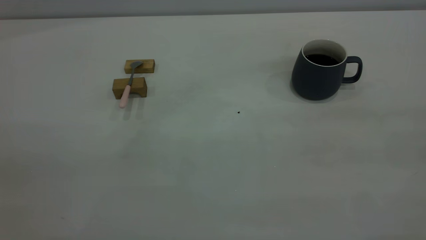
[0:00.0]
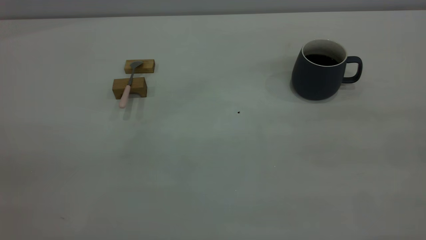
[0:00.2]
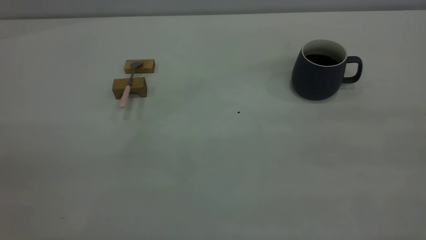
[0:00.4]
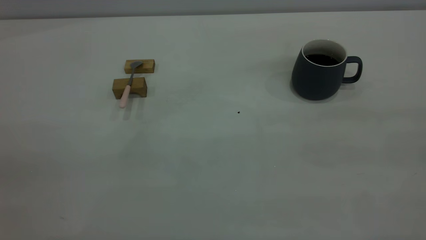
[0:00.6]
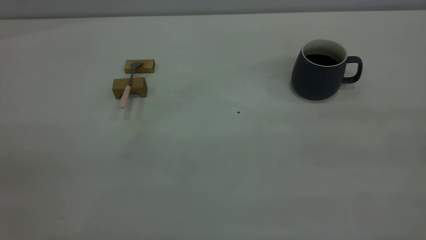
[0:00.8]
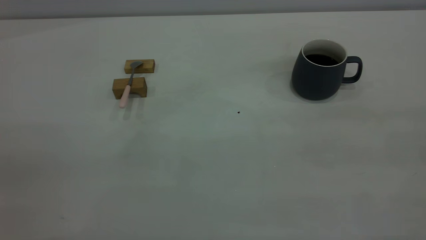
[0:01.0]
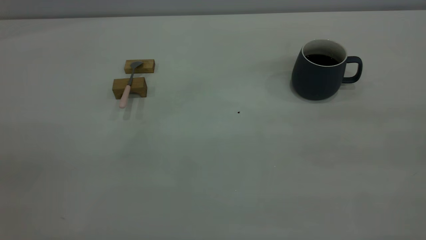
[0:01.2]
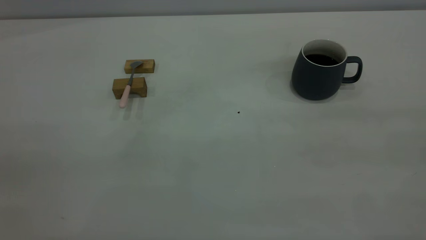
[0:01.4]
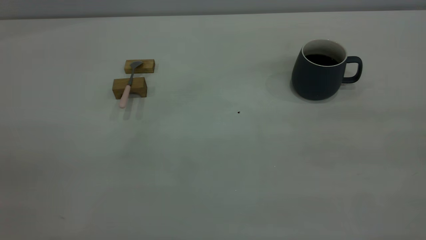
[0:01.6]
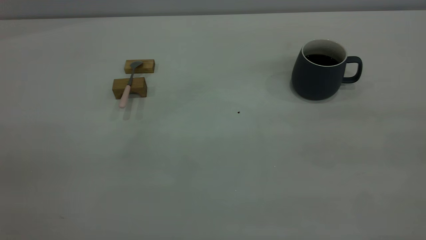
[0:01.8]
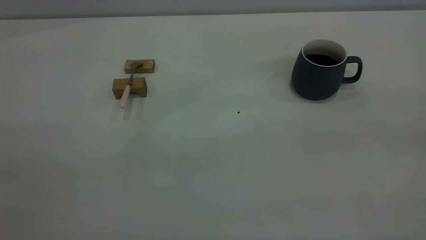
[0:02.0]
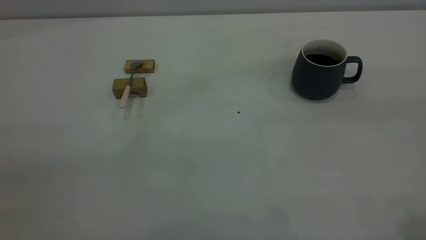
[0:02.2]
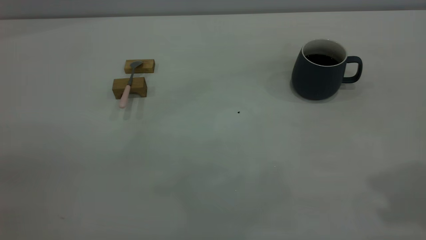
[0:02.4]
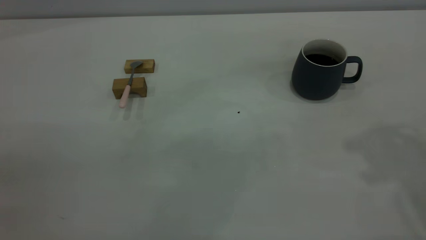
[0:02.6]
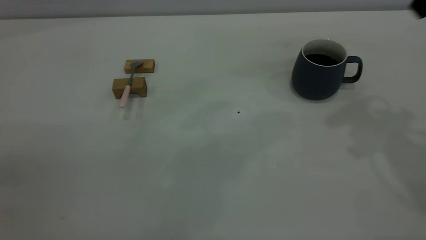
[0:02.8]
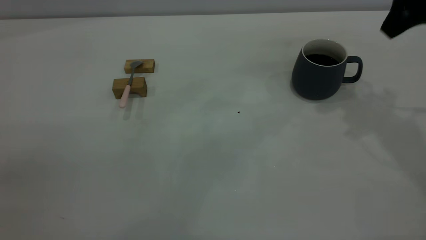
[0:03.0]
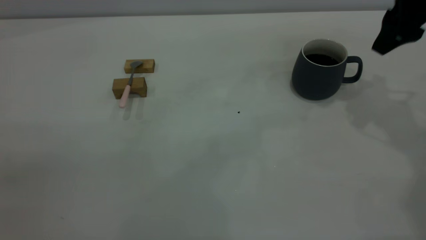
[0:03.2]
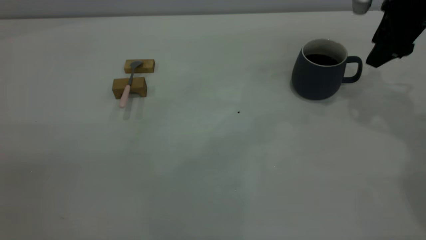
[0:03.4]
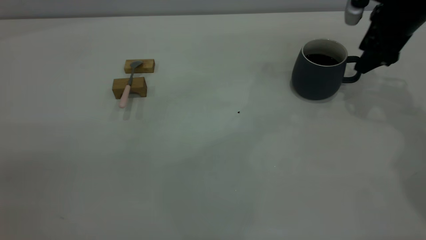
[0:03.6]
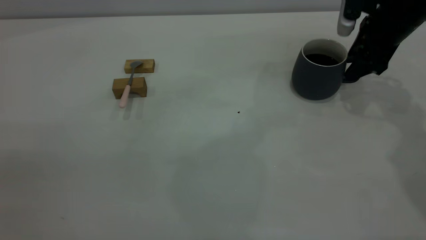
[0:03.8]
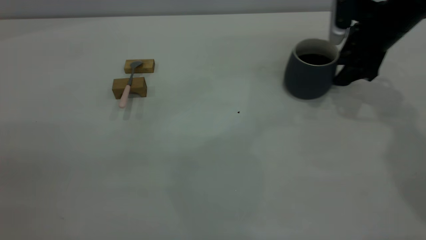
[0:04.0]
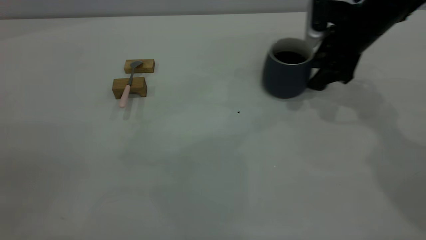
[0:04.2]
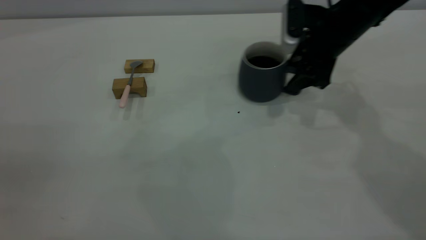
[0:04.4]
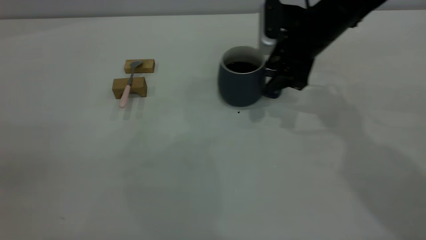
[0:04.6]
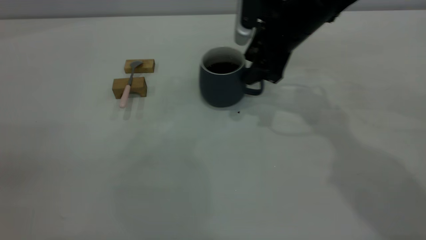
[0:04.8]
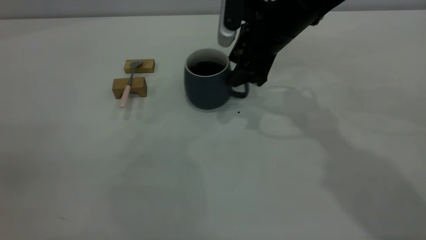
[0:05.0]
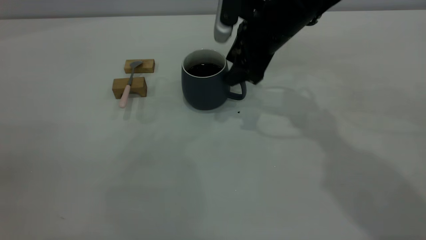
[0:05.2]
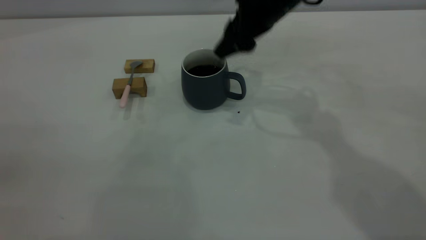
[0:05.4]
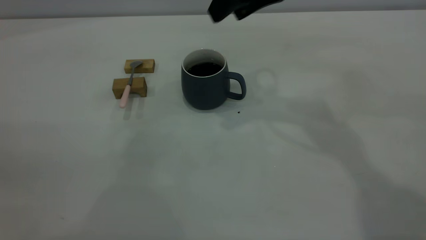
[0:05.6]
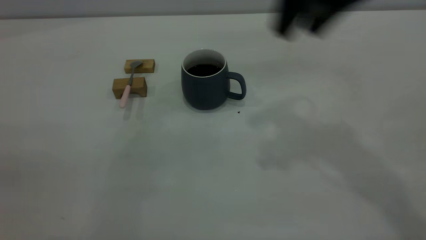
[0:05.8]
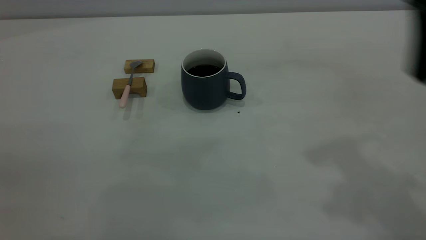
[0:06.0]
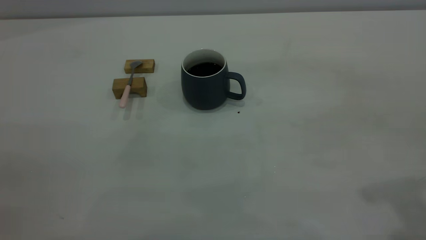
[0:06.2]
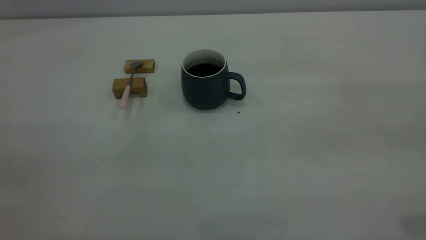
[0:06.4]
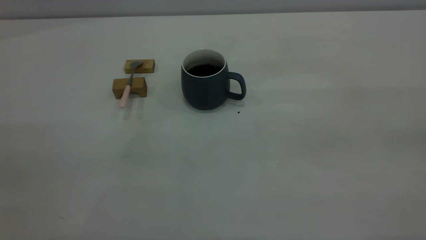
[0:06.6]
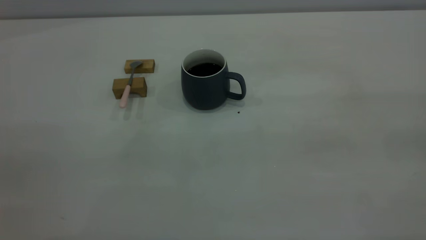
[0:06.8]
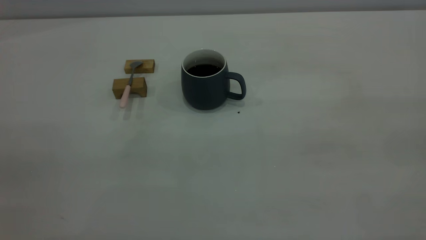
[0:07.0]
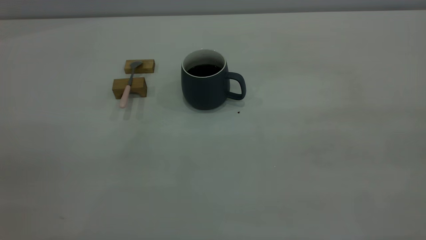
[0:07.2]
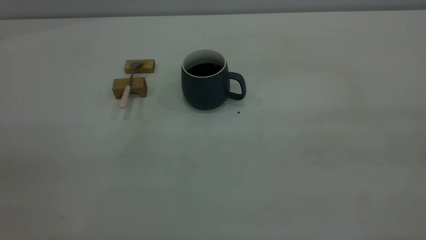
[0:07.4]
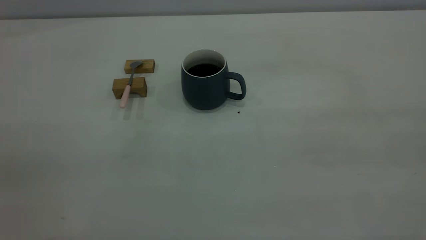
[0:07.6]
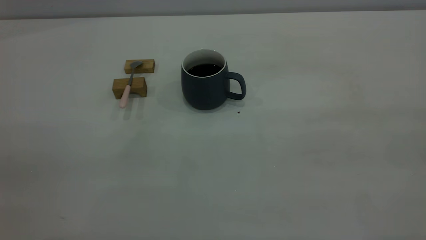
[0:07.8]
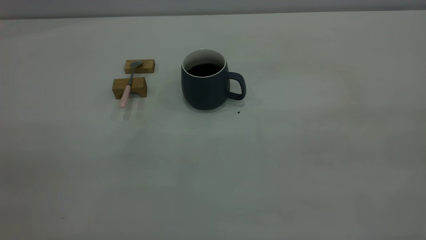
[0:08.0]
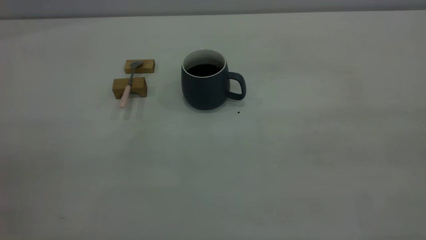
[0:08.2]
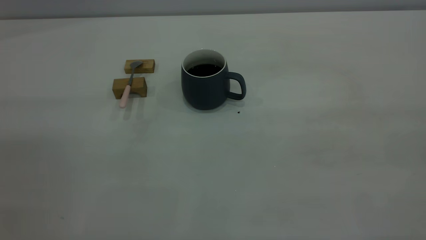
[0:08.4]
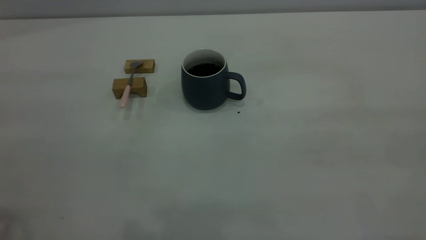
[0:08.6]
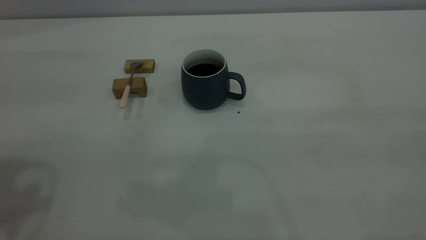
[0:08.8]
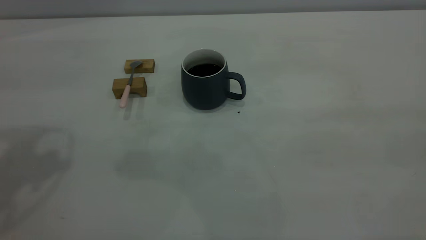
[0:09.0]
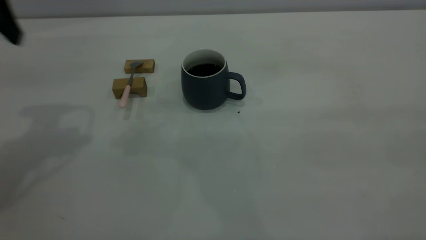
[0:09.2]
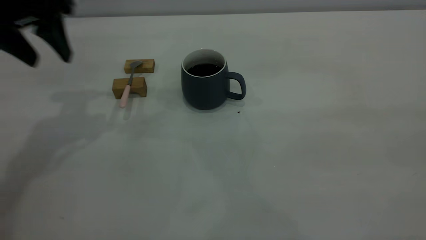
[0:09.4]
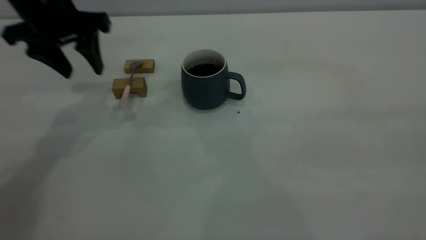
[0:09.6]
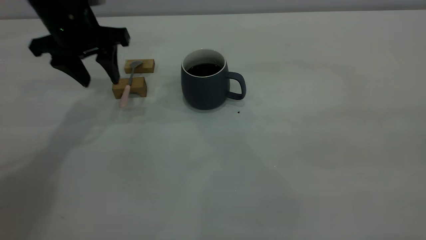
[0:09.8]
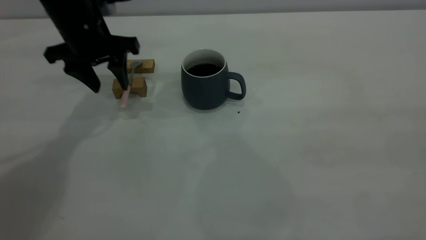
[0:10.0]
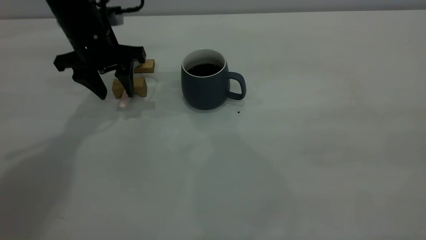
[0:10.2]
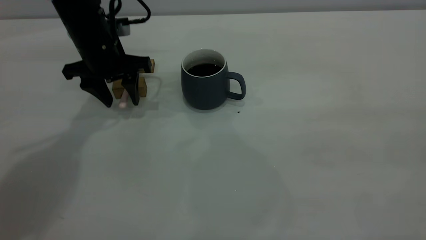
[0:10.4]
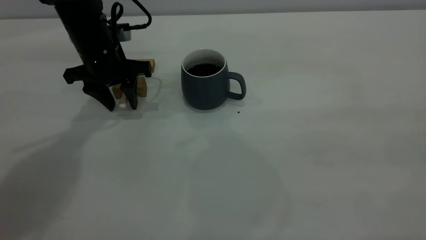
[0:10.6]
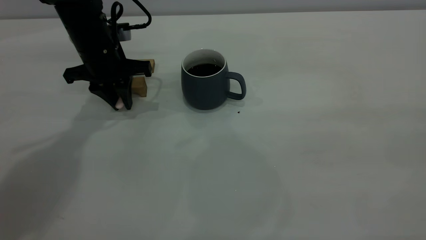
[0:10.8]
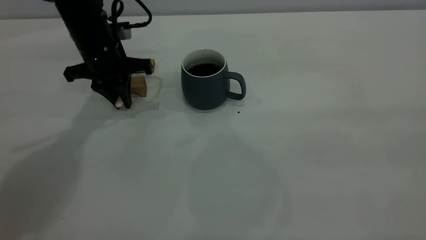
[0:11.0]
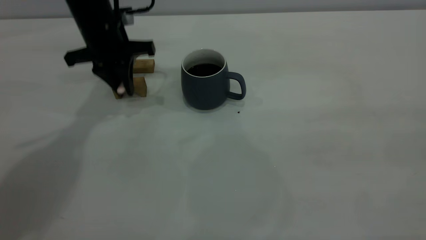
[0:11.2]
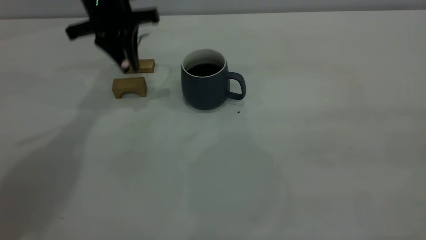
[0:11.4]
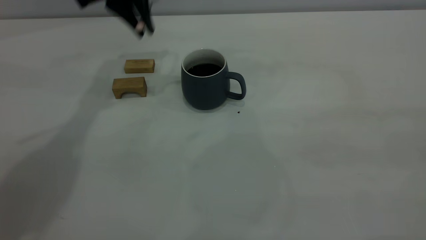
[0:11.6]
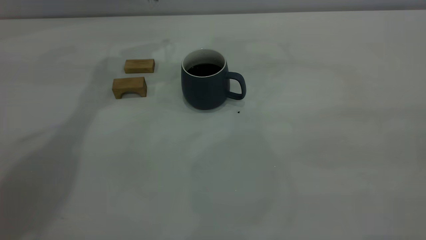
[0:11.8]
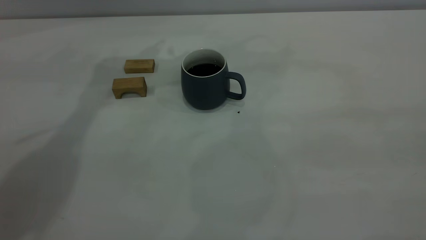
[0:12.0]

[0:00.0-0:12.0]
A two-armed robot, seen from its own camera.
Step, 0:00.0 to 0:05.2: Move the cup with coffee to the center of view.
Step, 0:05.6 to 0:11.2: Pick up the spoon.
0:00.0 to 0:01.6: The two grippers keep their place.
0:01.6 to 0:03.0: The right gripper is displaced forward by some 35 cm.
0:03.0 to 0:04.4: The right gripper moves downward, to the left and forward, approximately 15 cm.
0:04.4 to 0:06.0: The right gripper is displaced backward and upward by roughly 30 cm.
0:06.0 to 0:07.6: The right gripper heads backward and to the right, covering about 20 cm.
0:09.0 to 0:10.4: The left gripper heads downward, forward and to the right, covering roughly 30 cm.
0:10.4 to 0:12.0: The left gripper travels upward by approximately 20 cm, and closes.

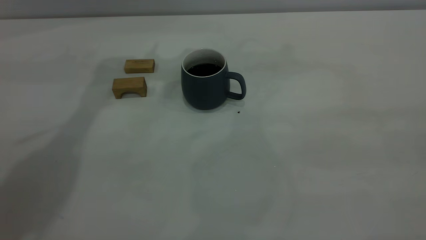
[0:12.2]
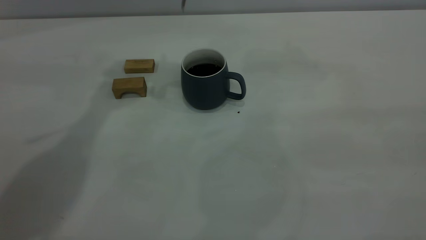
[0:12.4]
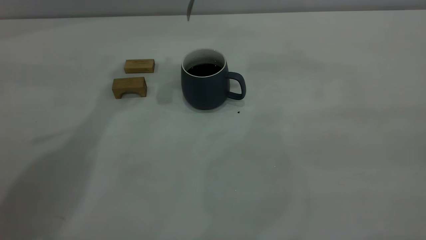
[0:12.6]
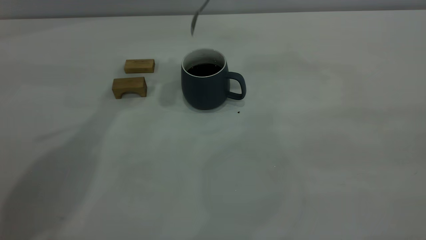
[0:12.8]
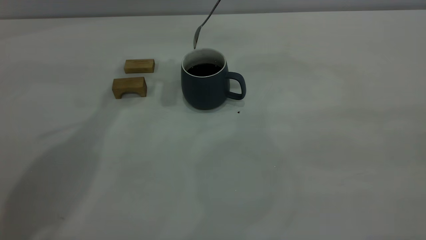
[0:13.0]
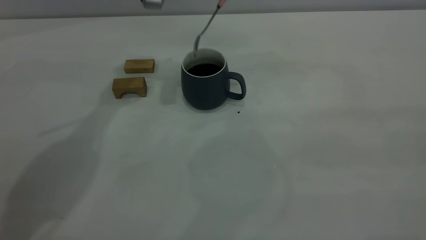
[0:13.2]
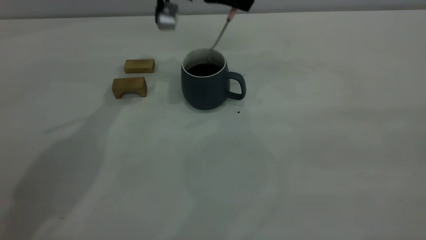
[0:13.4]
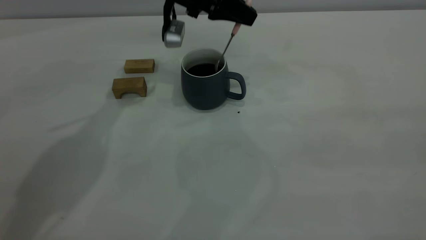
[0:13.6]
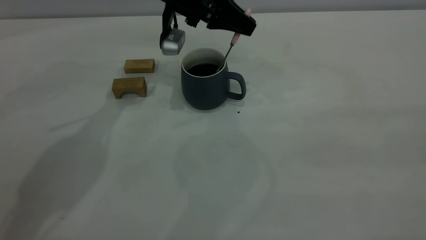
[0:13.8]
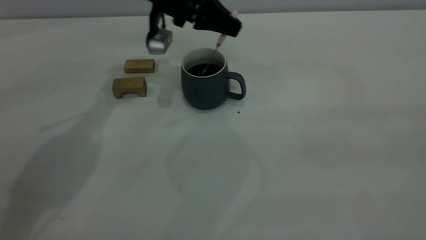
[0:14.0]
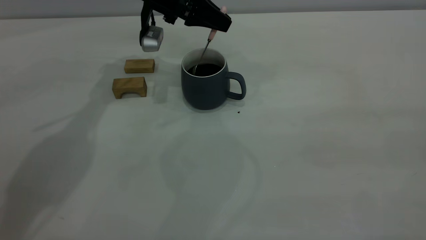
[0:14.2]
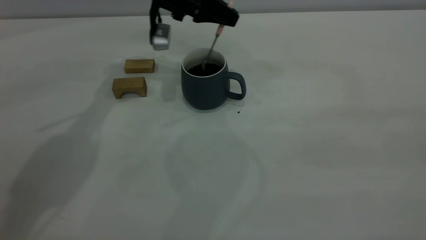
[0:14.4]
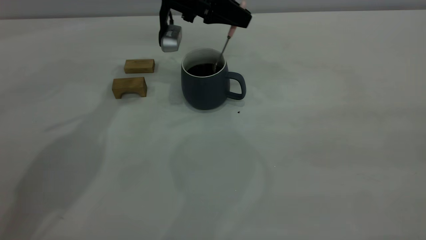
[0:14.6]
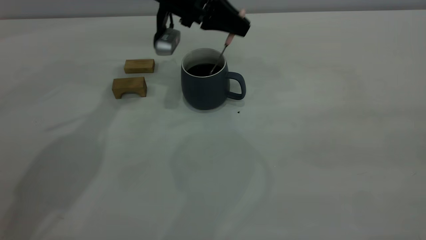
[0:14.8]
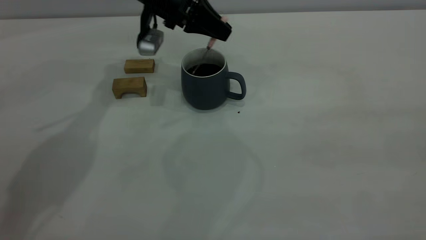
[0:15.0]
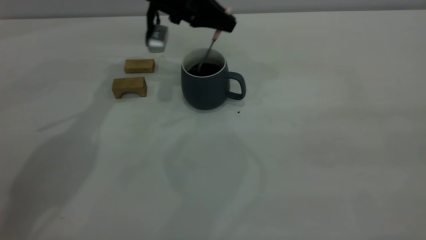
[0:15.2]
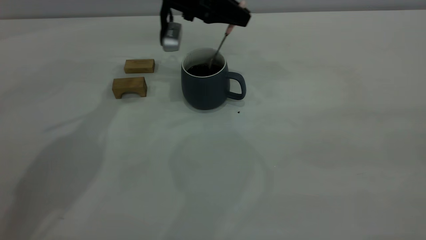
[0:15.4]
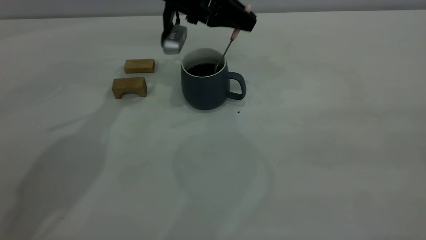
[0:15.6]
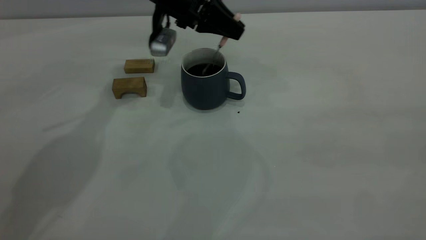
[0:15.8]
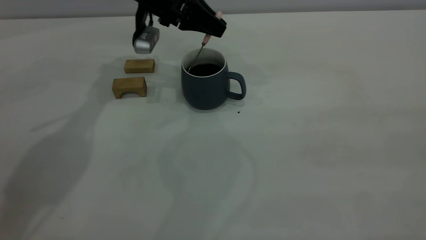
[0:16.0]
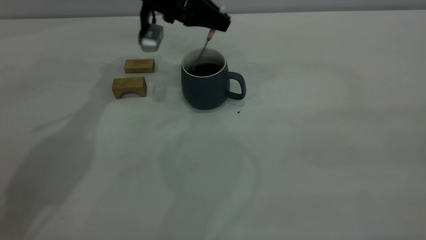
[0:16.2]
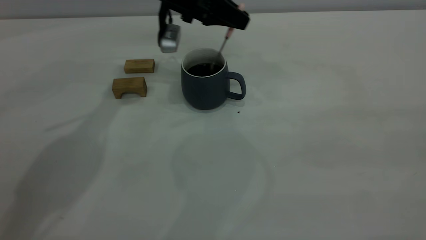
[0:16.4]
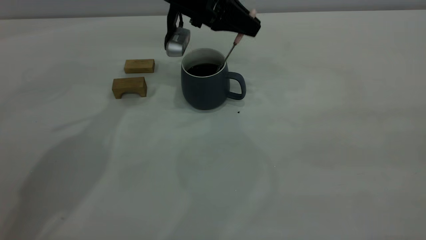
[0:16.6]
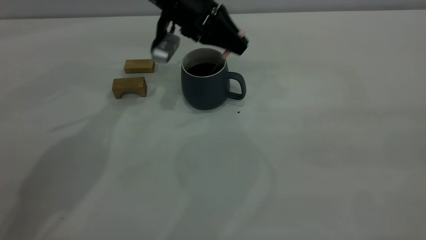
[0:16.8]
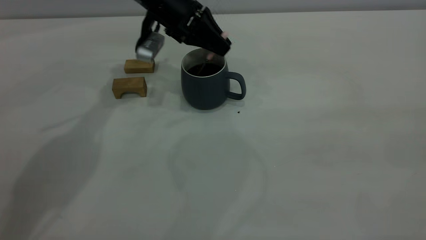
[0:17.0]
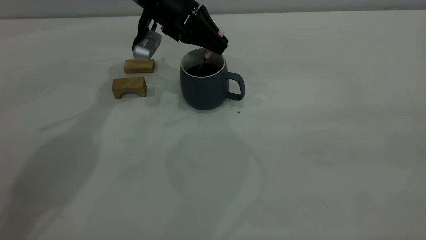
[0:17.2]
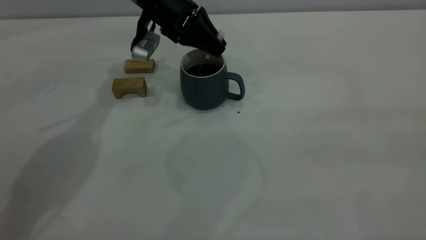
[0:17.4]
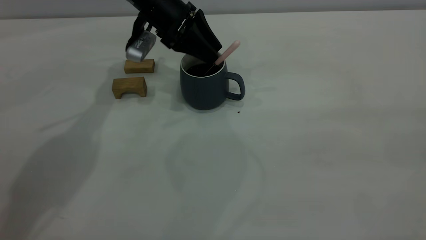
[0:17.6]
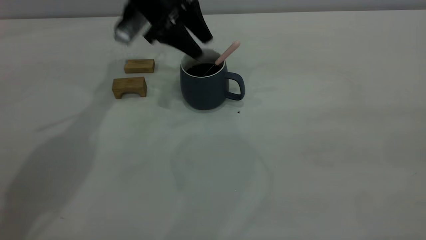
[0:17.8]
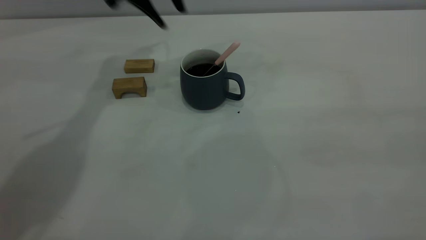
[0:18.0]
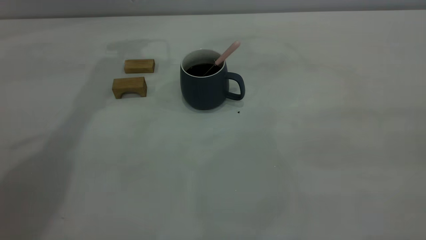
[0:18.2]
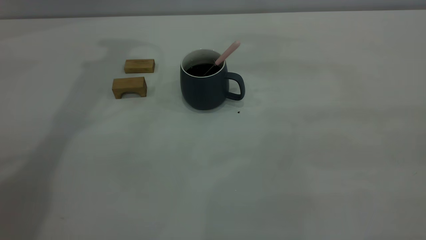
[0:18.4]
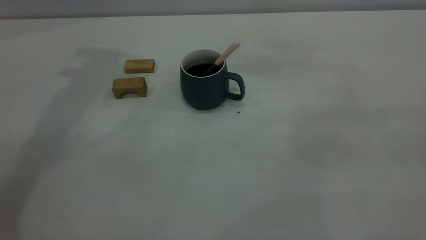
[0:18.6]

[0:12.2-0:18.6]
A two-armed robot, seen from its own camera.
Step, 0:12.2 to 0:17.8: Stir the coffee in the cup.
0:12.2 to 0:13.8: The left gripper goes roughly 15 cm downward.
0:13.8 to 0:17.0: The grippers move only a little.
0:17.0 to 0:18.6: The left gripper moves upward, about 35 cm, and opens.
